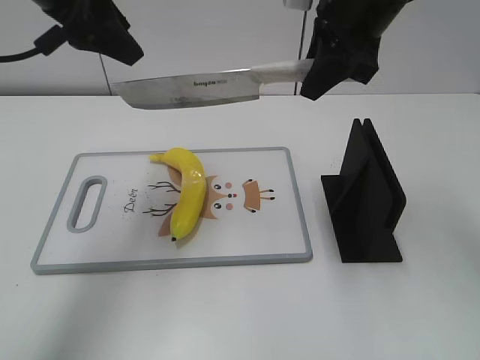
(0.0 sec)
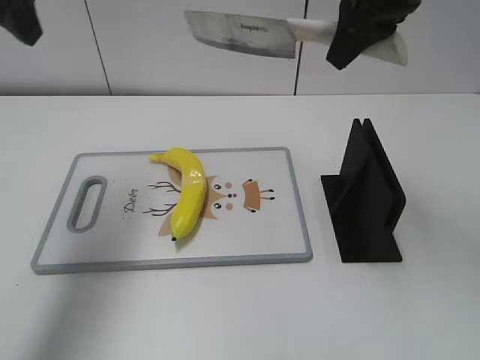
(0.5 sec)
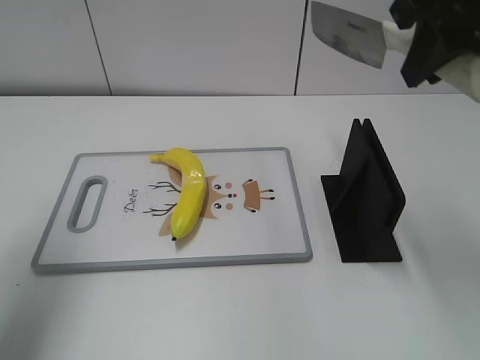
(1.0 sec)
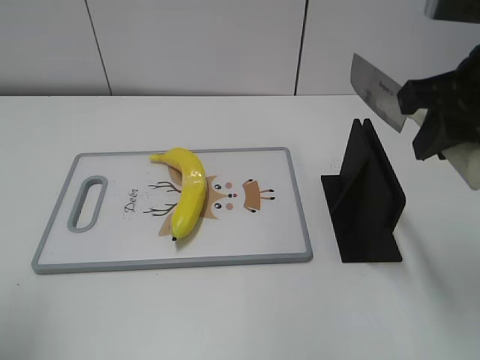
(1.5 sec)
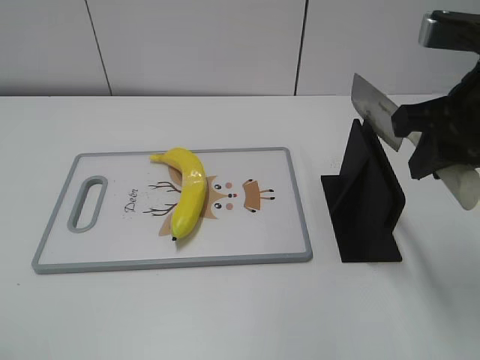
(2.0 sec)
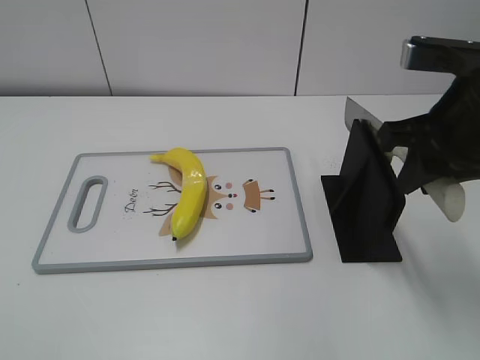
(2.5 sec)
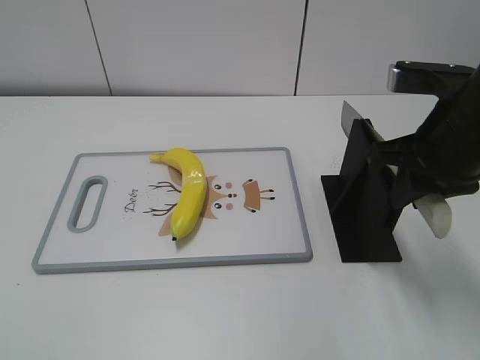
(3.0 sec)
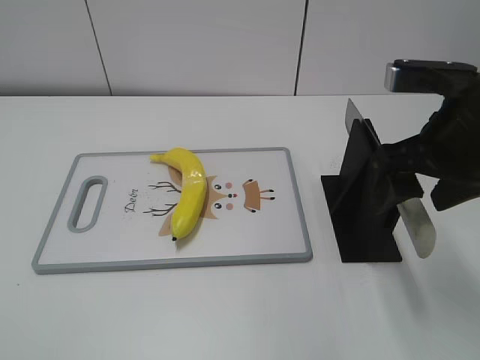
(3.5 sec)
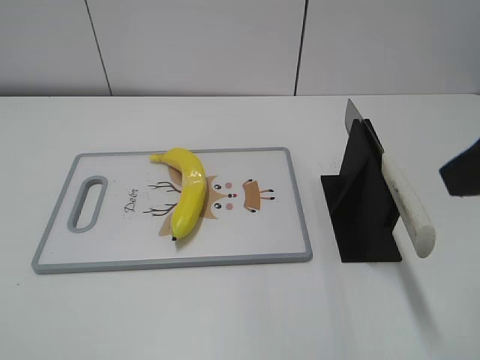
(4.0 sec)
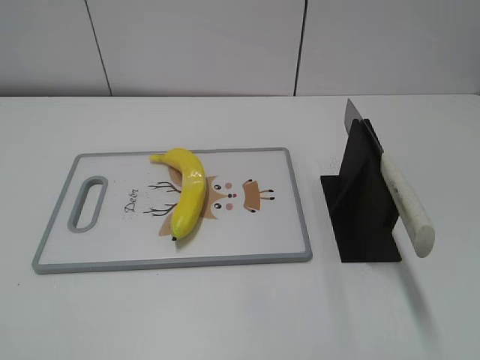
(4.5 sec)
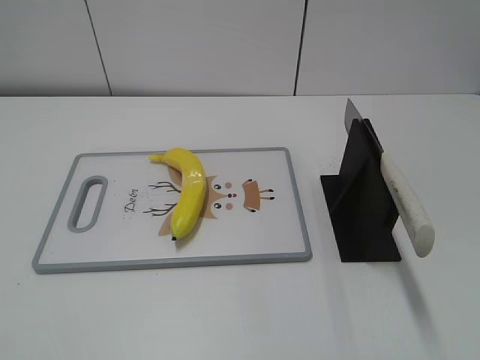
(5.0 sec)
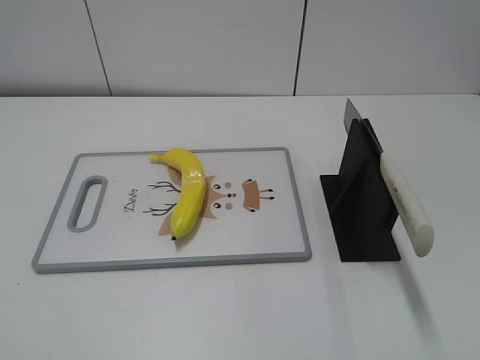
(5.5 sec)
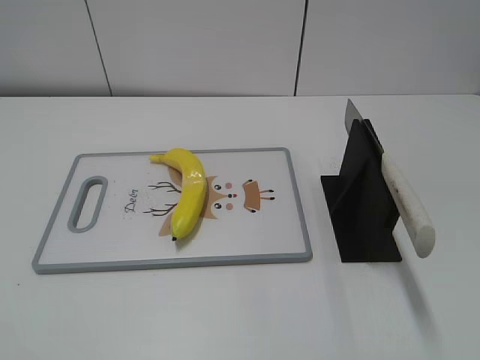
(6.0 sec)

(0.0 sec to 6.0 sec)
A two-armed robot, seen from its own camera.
Task of the whole recording: cut plastic banana.
Step, 1.0 sec - 2.0 sec: Lift the knife with your right hand.
Step, 2.5 sec - 6.0 sec: Place the knife on the storage rack with your right hand.
0.0 sec - 2.0 sec: The left gripper is displaced backward and to the left by about 30 cm. The right gripper heads backward and to the right, covering about 15 cm.
2.0 sec - 4.0 sec: The right gripper heads backward and upward, covering roughly 10 cm, and opens.
4.0 sec - 6.0 sec: The right gripper moves backward and to the right, approximately 20 cm.
